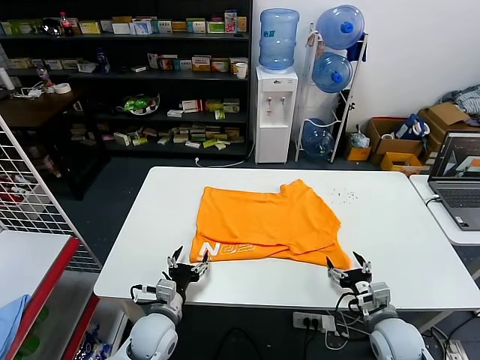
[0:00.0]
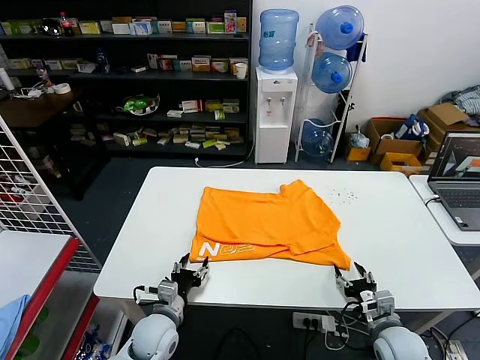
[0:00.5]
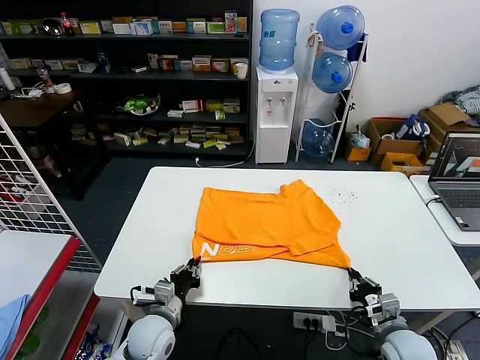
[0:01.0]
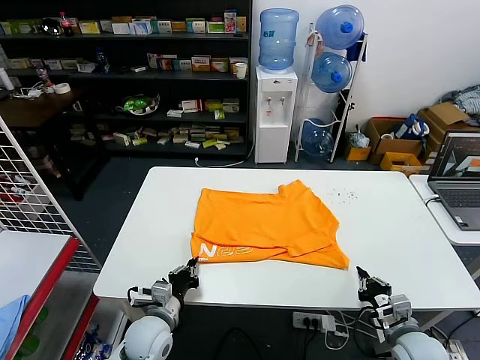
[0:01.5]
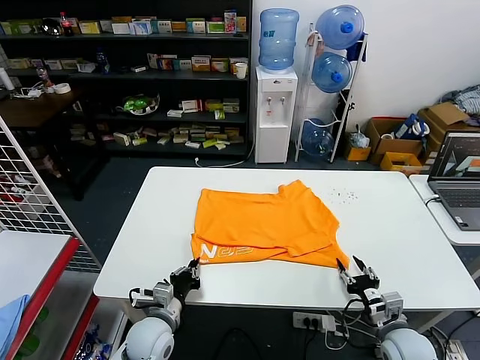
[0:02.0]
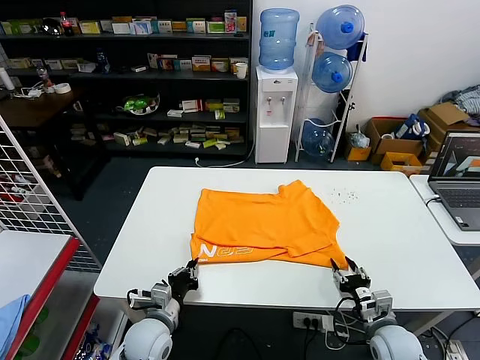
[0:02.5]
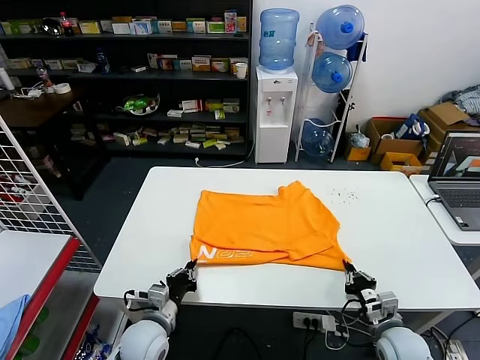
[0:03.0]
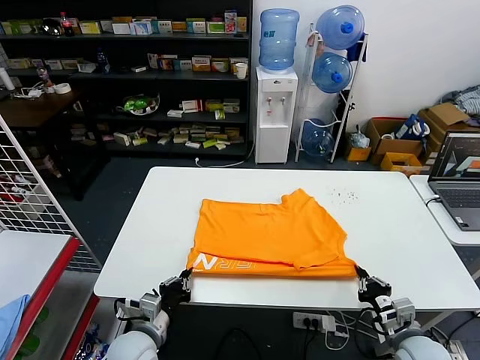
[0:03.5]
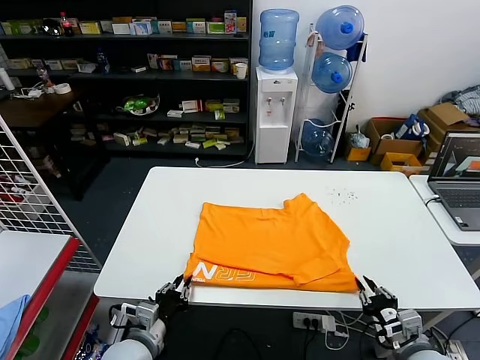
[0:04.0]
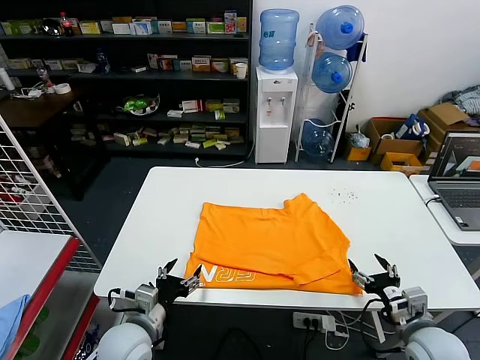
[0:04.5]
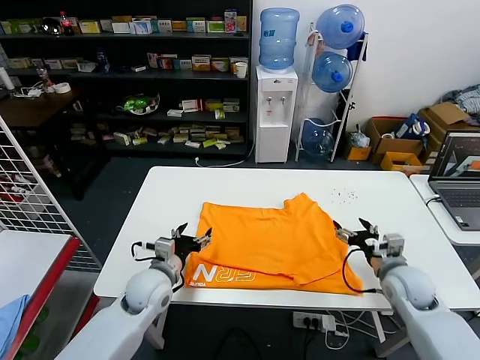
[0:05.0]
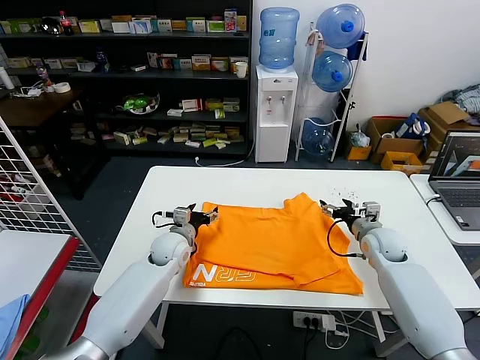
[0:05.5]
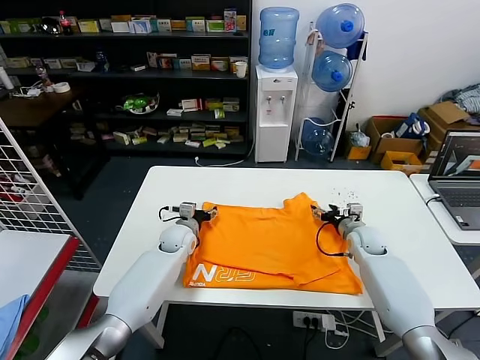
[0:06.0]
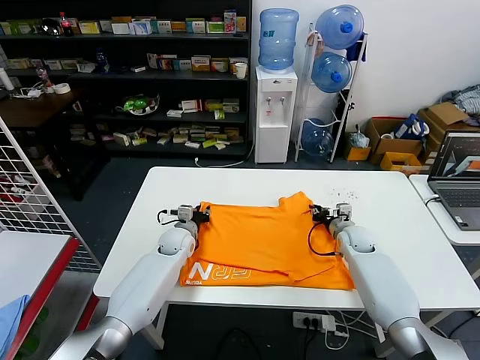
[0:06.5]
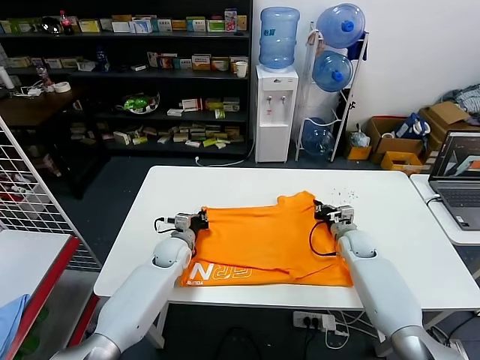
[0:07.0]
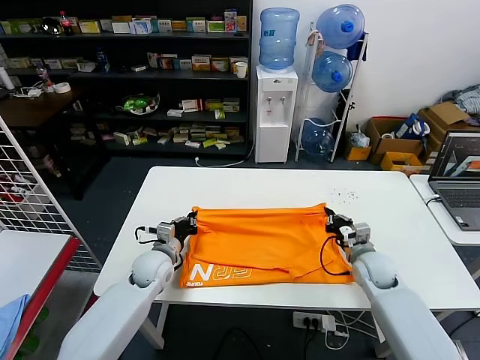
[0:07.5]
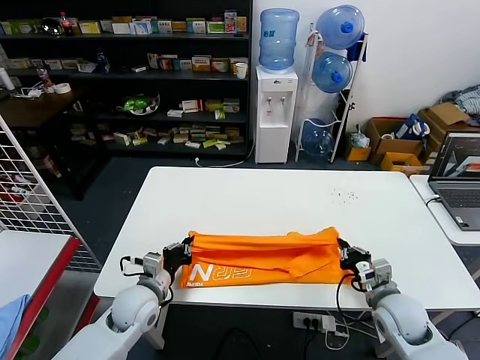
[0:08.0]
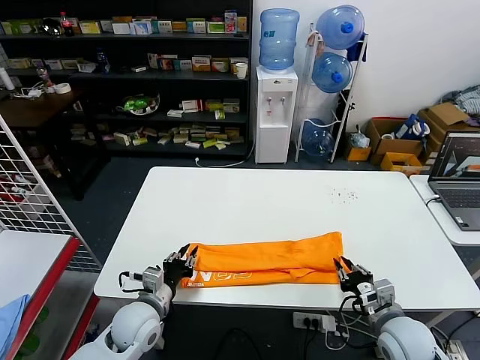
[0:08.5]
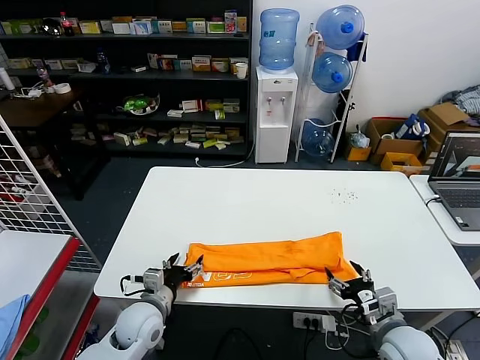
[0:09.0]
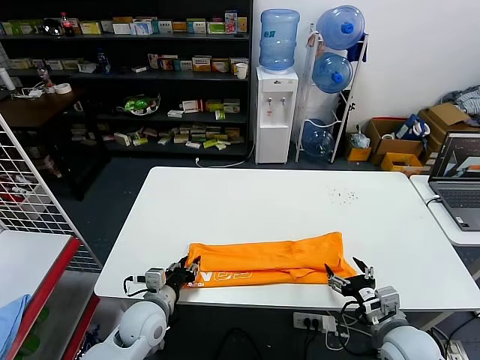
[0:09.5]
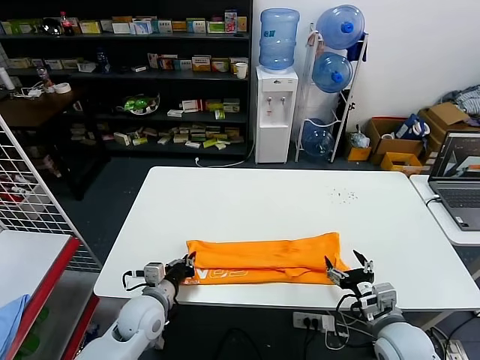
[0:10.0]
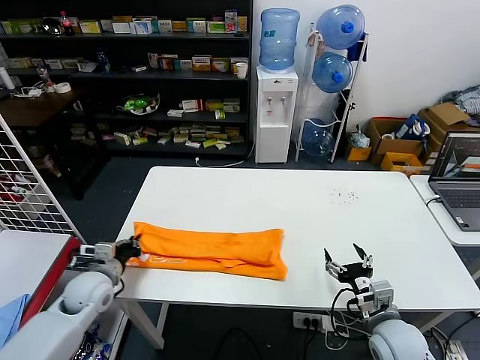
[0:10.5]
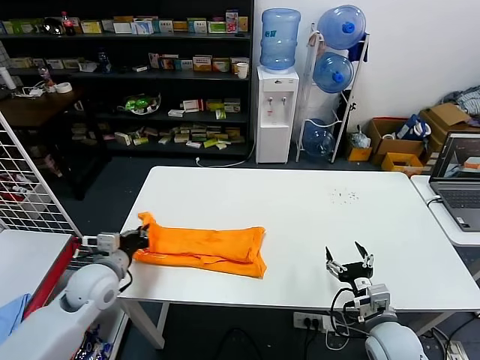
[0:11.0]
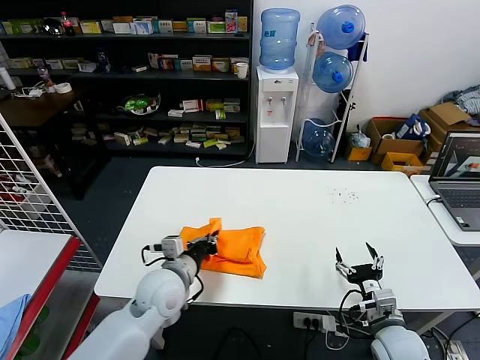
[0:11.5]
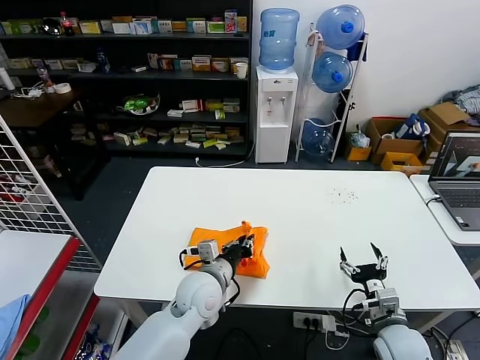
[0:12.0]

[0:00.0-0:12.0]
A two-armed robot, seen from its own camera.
Task of the whole recording: fold and organize the clothes.
Step, 0.0 to 4.0 s: Drag the clothes downward with both gripper.
Step, 4.5 to 6.5 s: use both grippers simultaneously to clamp the upper edge of the clothing fabric.
Step, 7.0 to 8.5 s: use both grippers to drag the upper edge of the fabric backward and fold it over the lower edge.
Step, 9.0 to 9.5 s: use the left gripper to clamp the left edge of the fabric.
0.0 to 2.0 s: The left gripper closes its fingers, while the right gripper closes, then opens again.
2.0 to 4.0 s: The two grippers go roughly 5 cm backward.
4.0 to 6.0 s: The grippers both shift forward by about 30 cm. The right gripper opens up. Meanwhile the left gripper opens.
6.0 to 8.0 s: Both grippers travel together backward, roughly 20 cm. The right gripper closes, while the left gripper closes up.
8.0 to 10.0 s: The right gripper heads backward, covering about 5 cm, and opens up; the left gripper opens, then closes again.
10.0 to 12.0 s: The left gripper moves to the right and upward, about 15 cm.

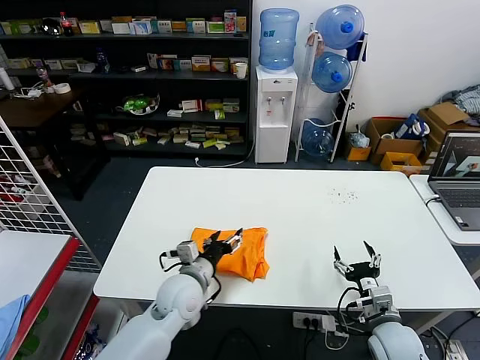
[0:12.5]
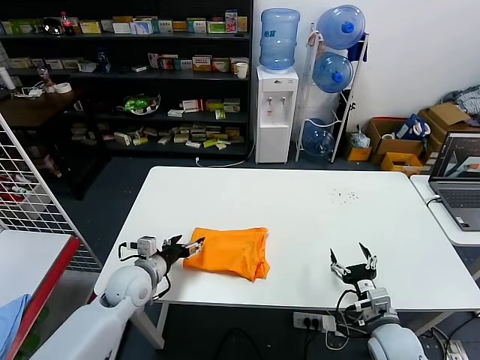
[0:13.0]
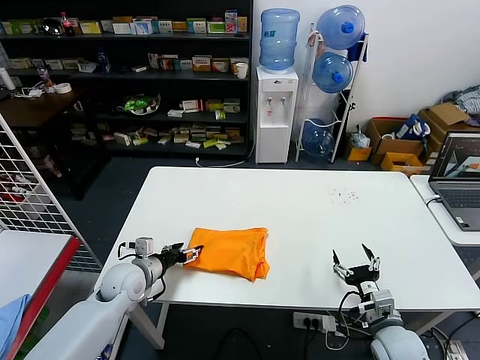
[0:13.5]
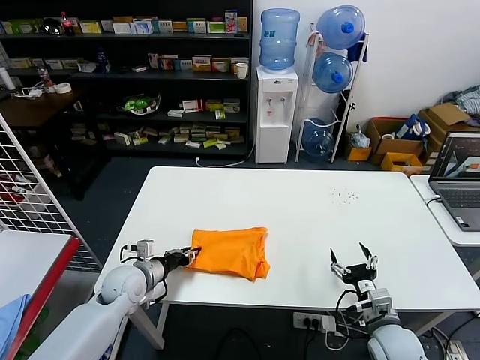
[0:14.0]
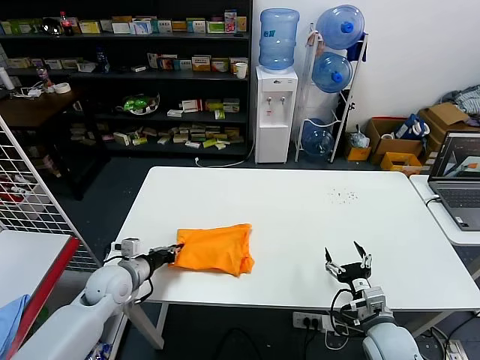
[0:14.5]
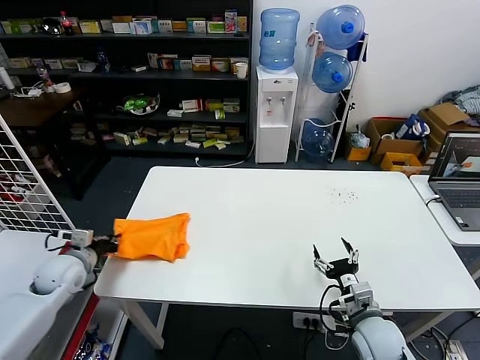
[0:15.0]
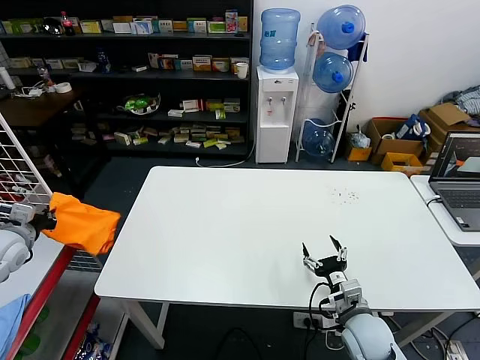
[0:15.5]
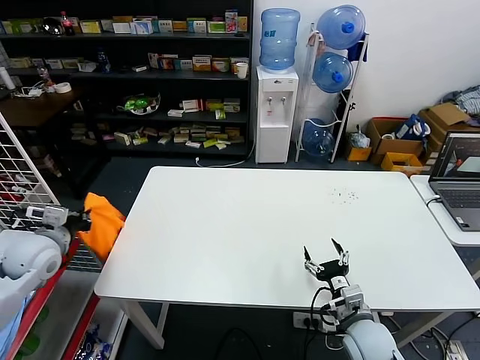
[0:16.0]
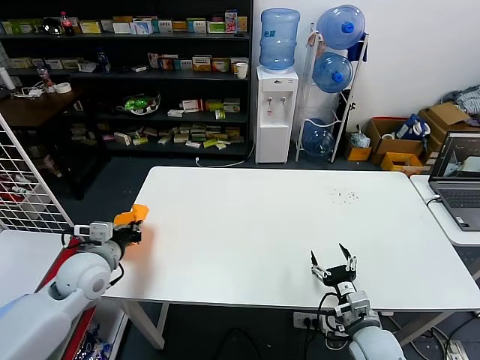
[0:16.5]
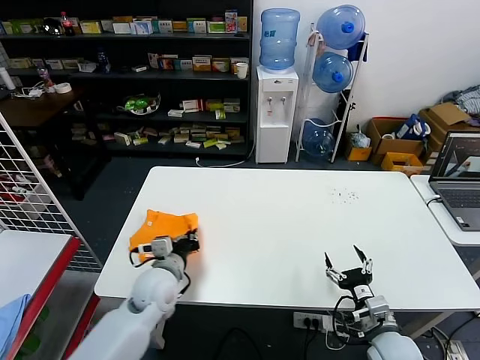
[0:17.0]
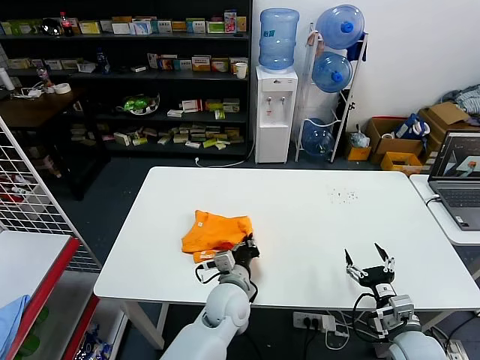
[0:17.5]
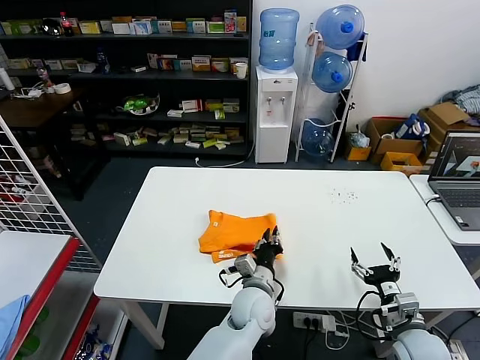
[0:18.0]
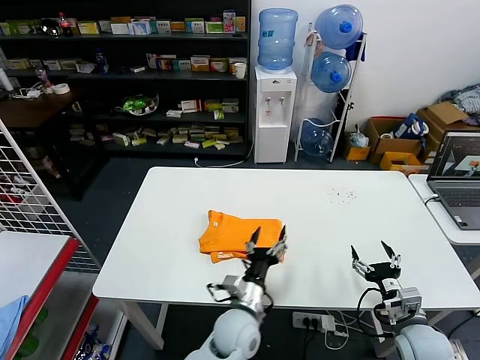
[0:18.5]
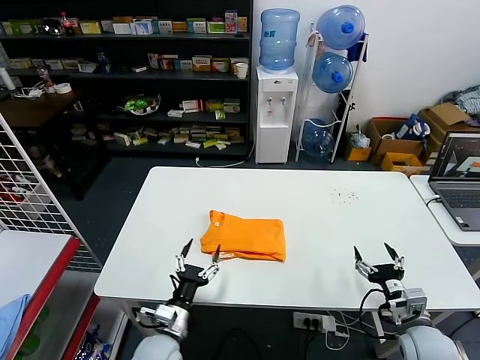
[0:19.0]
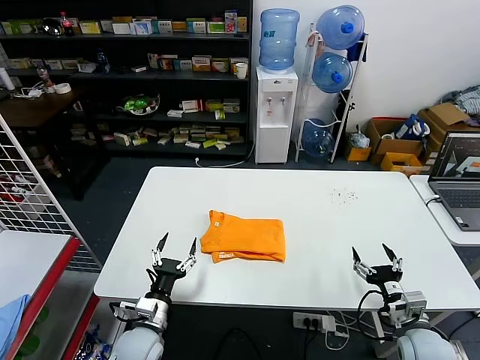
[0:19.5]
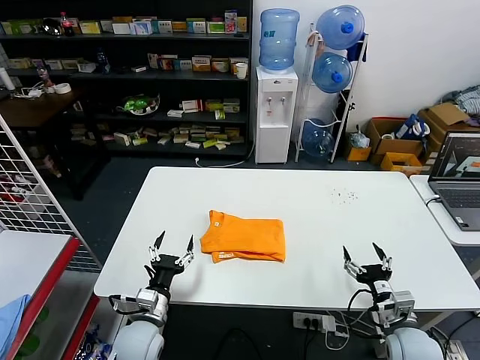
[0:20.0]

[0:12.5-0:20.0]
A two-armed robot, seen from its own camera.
Task of the whole recording: fold and organize the clothes.
Step, 12.5 to 17.5 s: Flip the folded clothes over with left gripper.
12.5 to 14.5 s: The left gripper shifts about 20 cm to the left, and closes its fingers.
14.5 to 16.5 s: The left gripper travels upward by roughly 10 cm, and goes to the left and returns, roughly 20 cm each way.
16.5 to 18.0 s: The left gripper travels to the right by roughly 35 cm. Meanwhile the right gripper is displaced to the right by roughly 10 cm.
18.0 to 20.0 s: The left gripper travels to the left by some 25 cm, and opens.

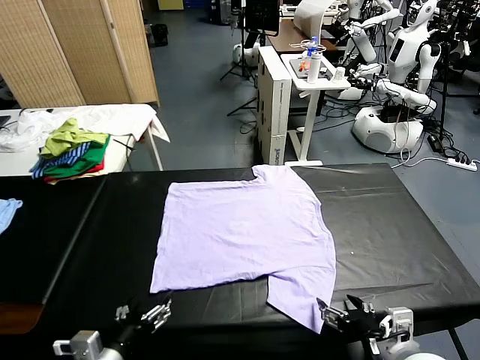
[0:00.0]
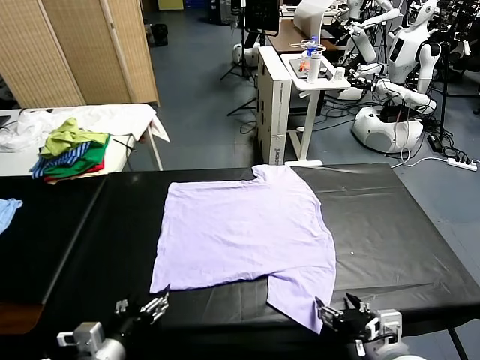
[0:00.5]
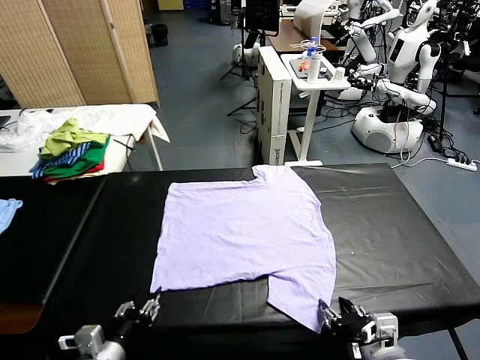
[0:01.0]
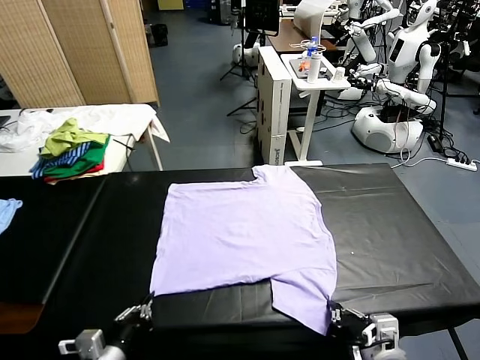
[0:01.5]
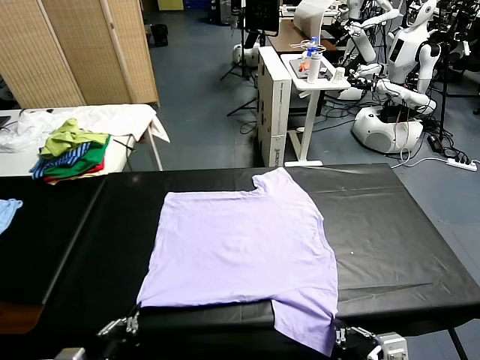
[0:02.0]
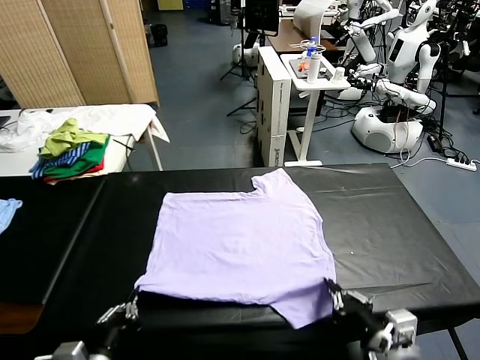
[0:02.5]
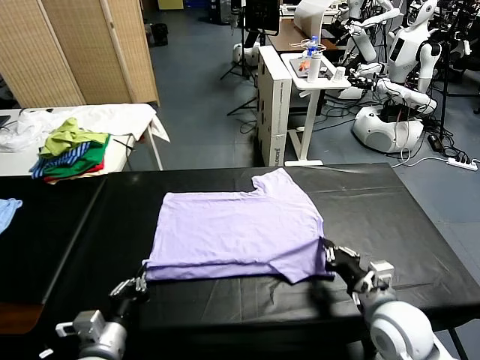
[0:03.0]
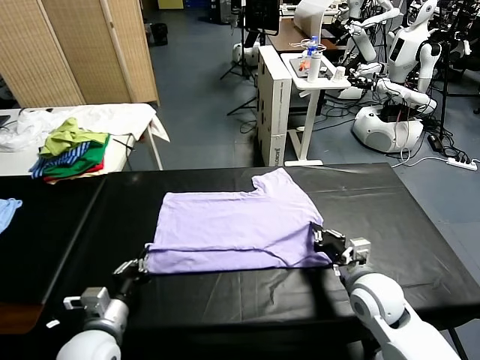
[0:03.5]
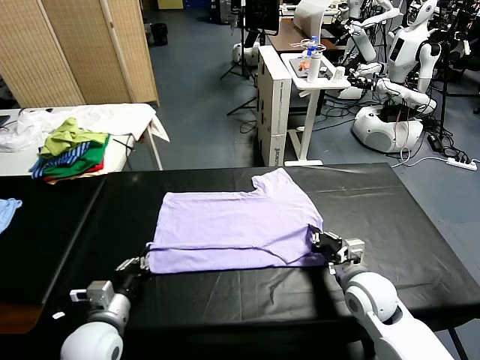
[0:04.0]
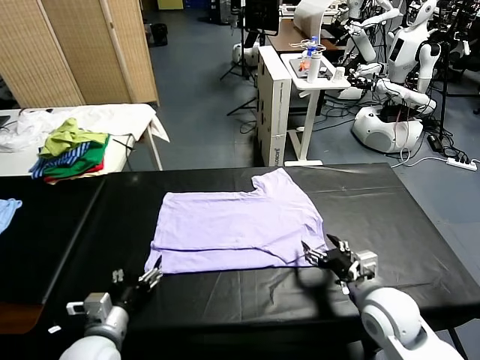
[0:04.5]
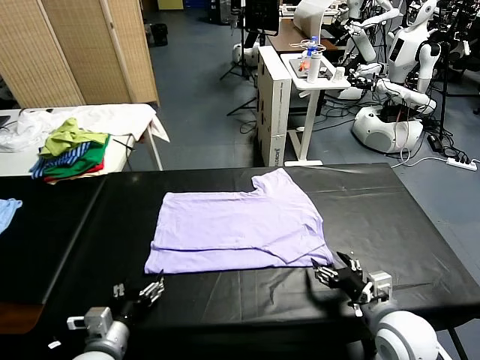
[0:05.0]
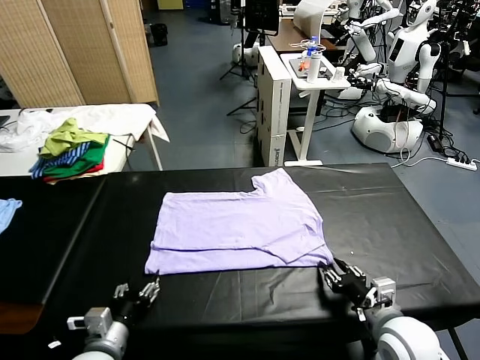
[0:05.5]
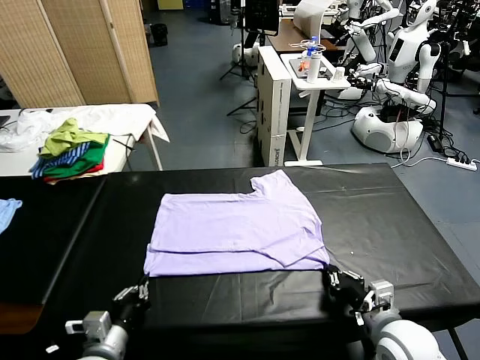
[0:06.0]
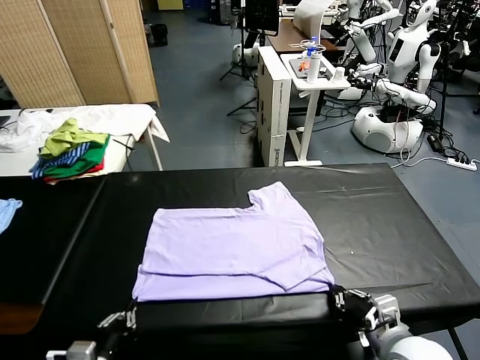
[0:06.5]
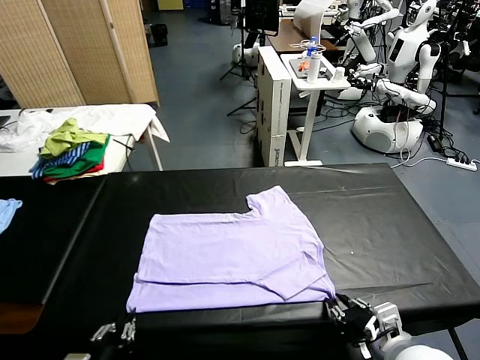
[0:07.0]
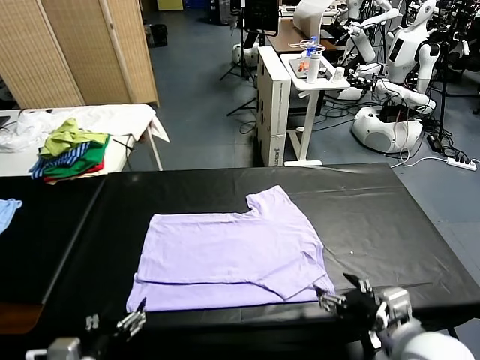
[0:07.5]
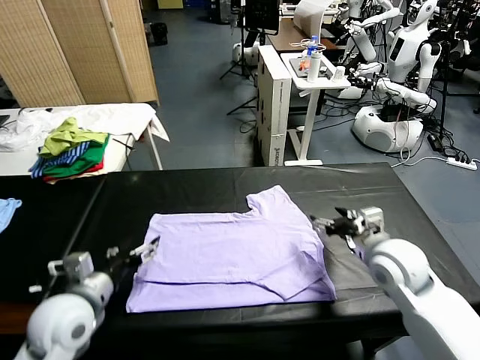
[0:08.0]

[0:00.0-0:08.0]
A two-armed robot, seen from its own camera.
Task of the whole recording: fold and organize the clothes.
Step, 0.0 to 1.5 s: use both grippers simultaneously to clamp the lower edge of the clothing fabric.
Step, 2.0 to 4.0 s: use both grippers to drag the lower edge of the fabric forward and fold it over the upper edge.
Step, 4.5 to 7.0 s: Drag the clothes downward with both gripper.
2.0 to 4.0 s: The right gripper heads forward, covering about 20 cm, and opens up. Meanwhile the left gripper is displaced forward and downward by approximately 15 cm.
4.0 to 6.0 s: The right gripper goes about 10 cm backward, and closes its fingers. Meanwhile the left gripper travels backward by roughly 5 cm, and opens, then closes again.
6.0 to 8.0 s: The right gripper goes some 20 cm forward, and opens its fingers; the left gripper moves forward and upward, roughly 15 cm, and opens up.
